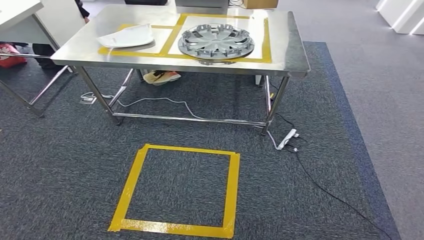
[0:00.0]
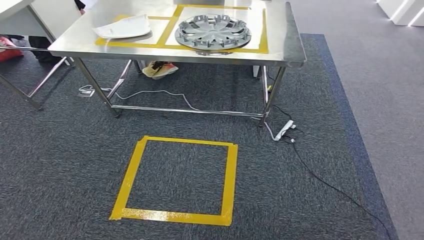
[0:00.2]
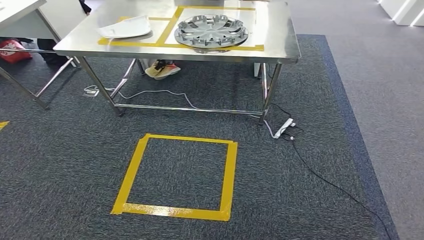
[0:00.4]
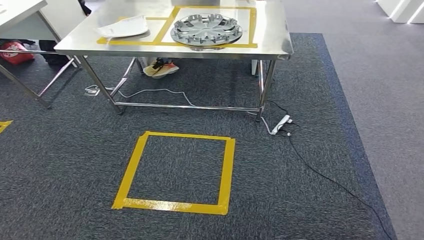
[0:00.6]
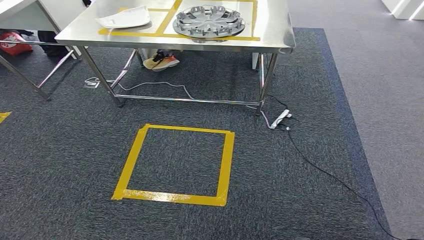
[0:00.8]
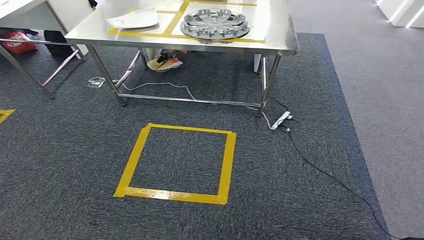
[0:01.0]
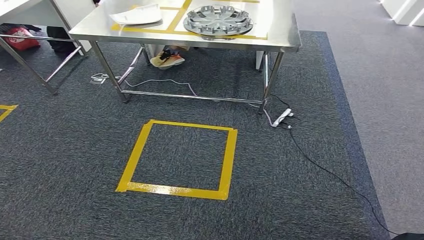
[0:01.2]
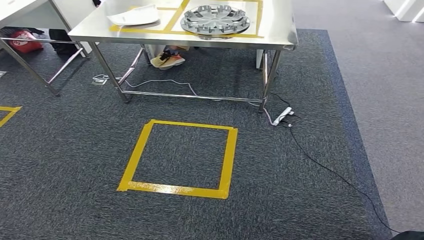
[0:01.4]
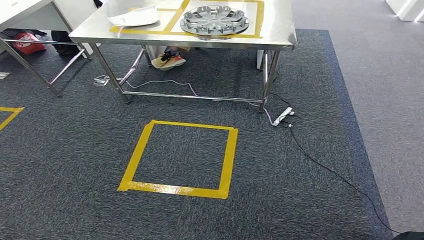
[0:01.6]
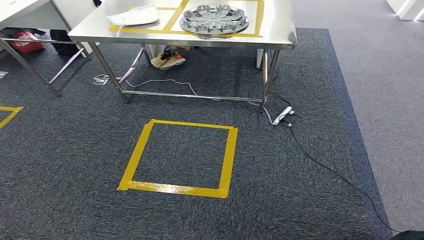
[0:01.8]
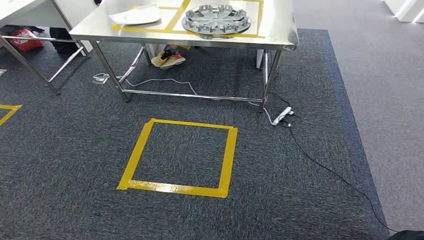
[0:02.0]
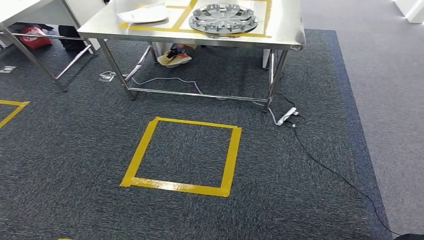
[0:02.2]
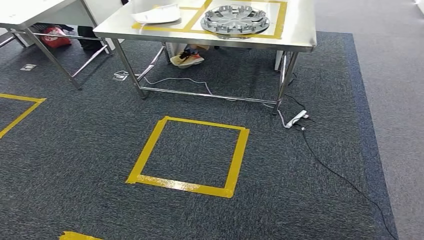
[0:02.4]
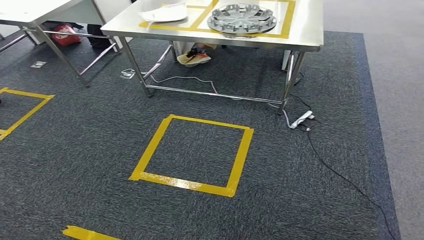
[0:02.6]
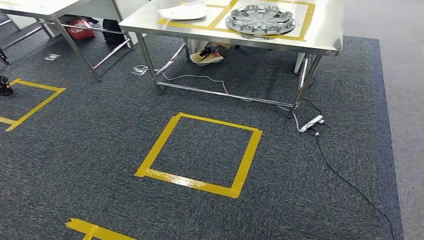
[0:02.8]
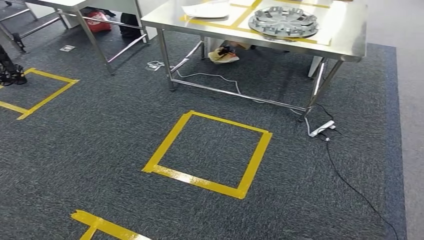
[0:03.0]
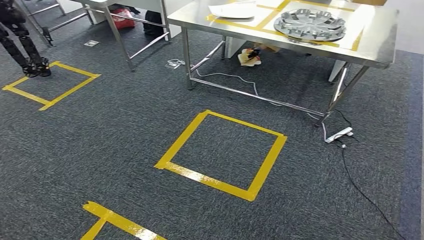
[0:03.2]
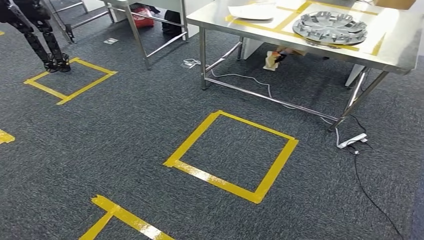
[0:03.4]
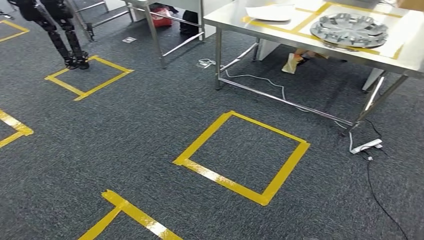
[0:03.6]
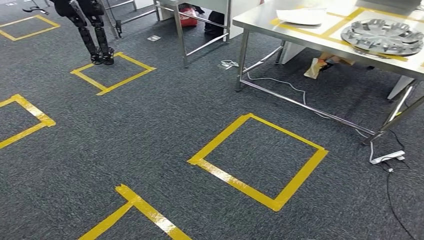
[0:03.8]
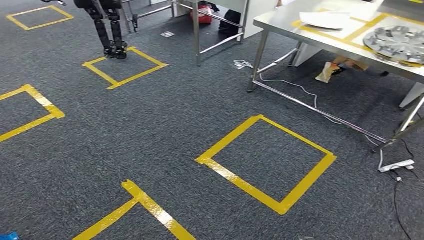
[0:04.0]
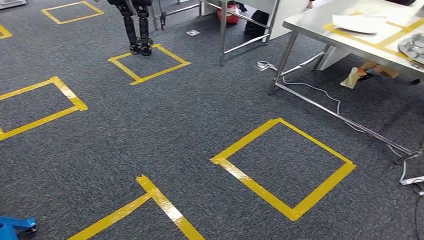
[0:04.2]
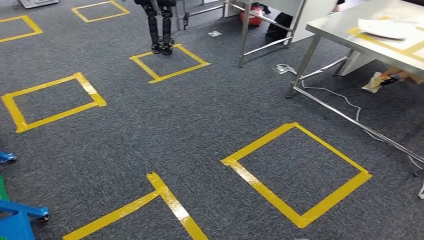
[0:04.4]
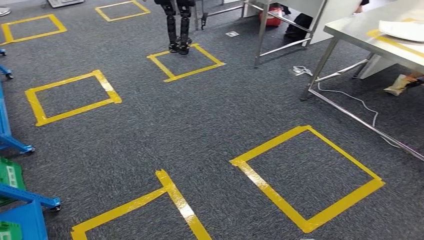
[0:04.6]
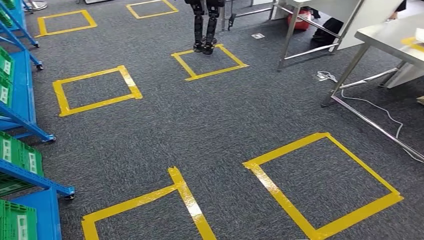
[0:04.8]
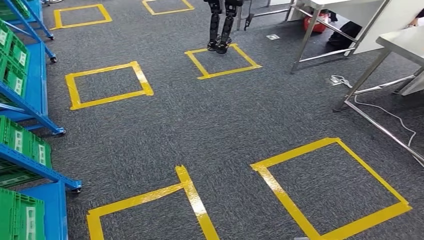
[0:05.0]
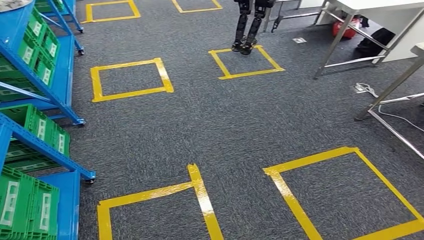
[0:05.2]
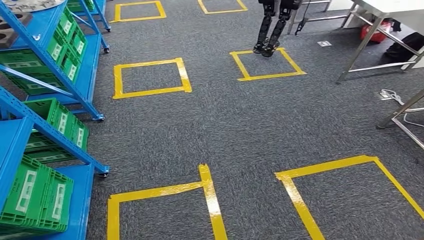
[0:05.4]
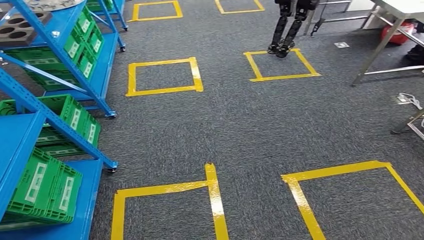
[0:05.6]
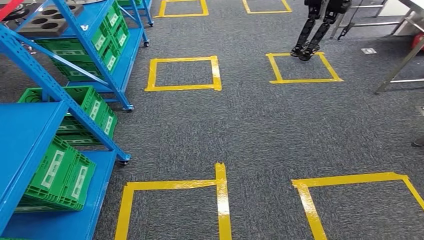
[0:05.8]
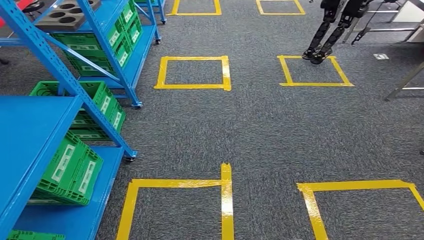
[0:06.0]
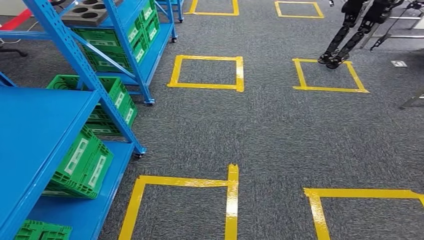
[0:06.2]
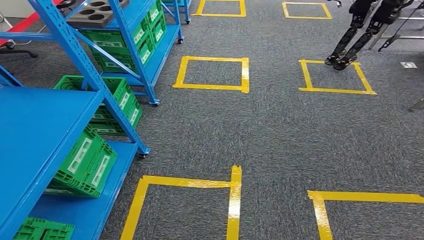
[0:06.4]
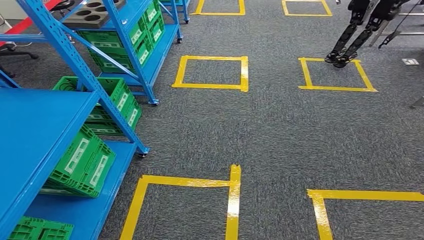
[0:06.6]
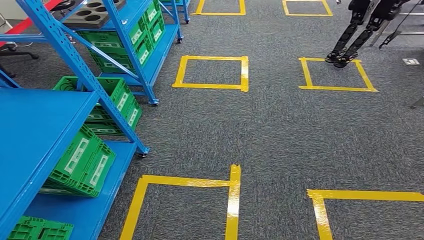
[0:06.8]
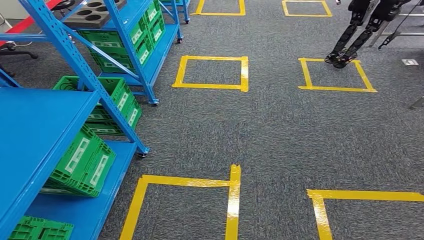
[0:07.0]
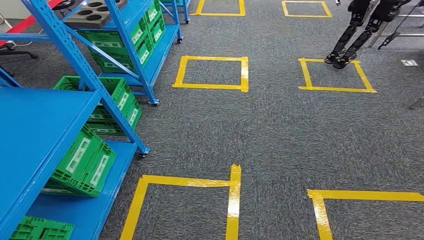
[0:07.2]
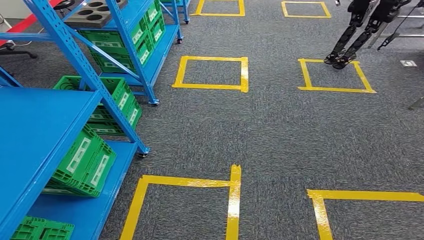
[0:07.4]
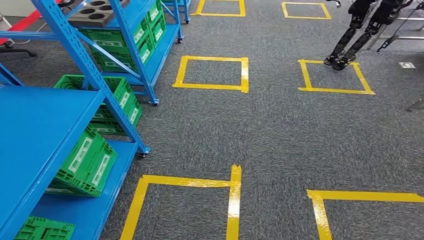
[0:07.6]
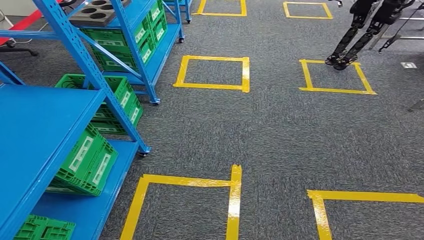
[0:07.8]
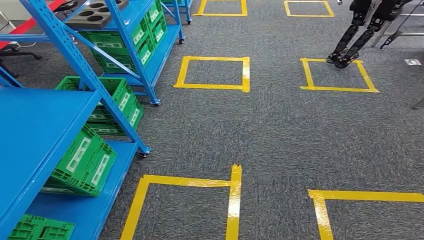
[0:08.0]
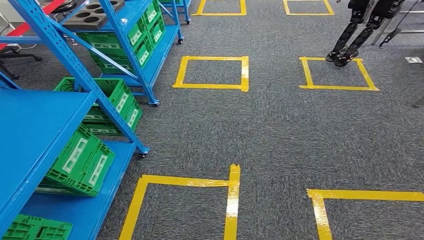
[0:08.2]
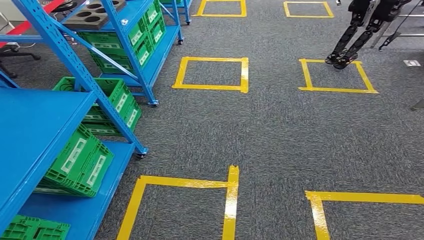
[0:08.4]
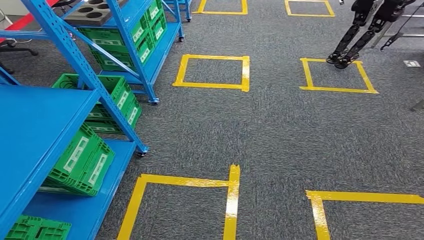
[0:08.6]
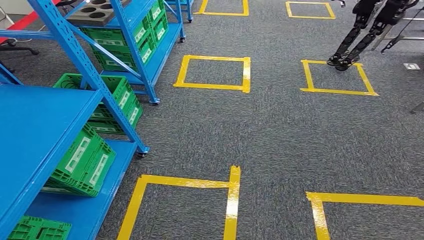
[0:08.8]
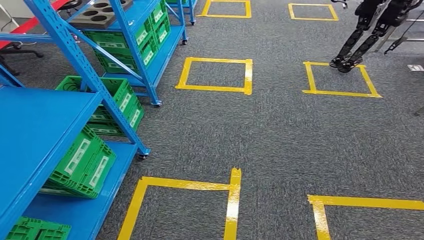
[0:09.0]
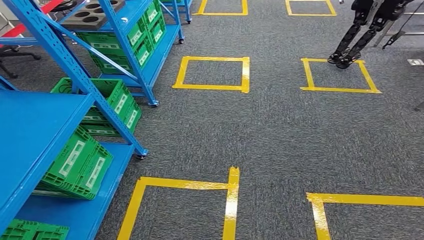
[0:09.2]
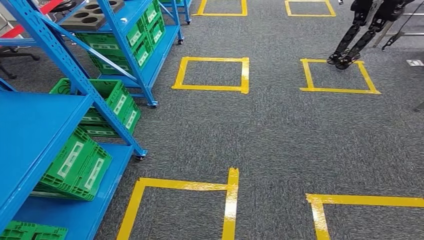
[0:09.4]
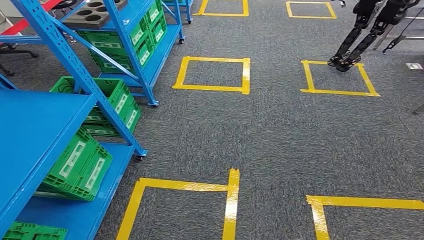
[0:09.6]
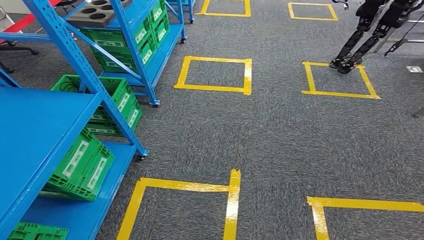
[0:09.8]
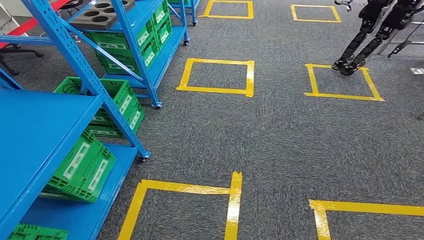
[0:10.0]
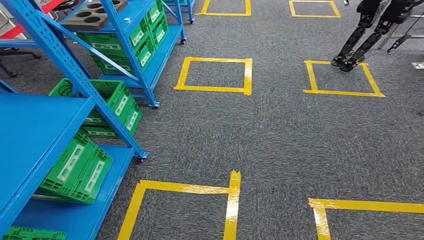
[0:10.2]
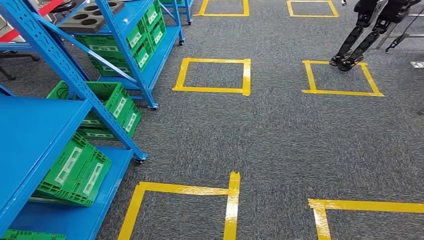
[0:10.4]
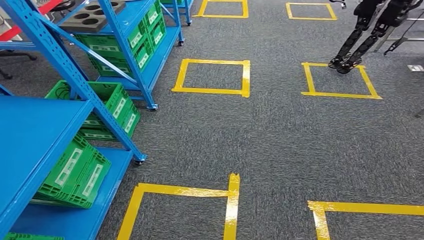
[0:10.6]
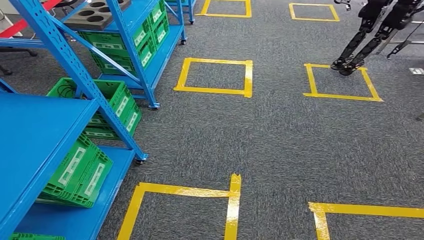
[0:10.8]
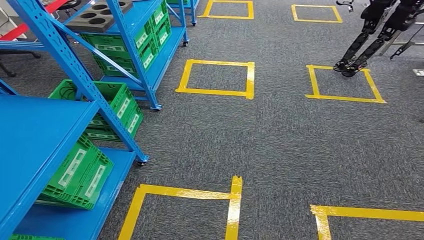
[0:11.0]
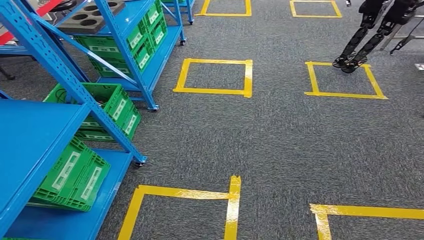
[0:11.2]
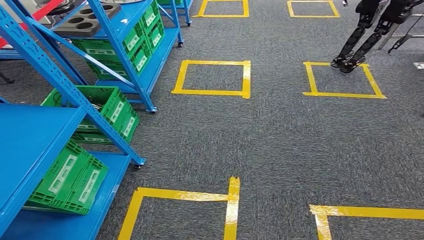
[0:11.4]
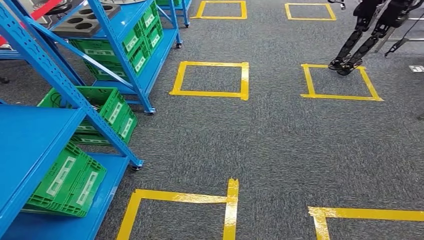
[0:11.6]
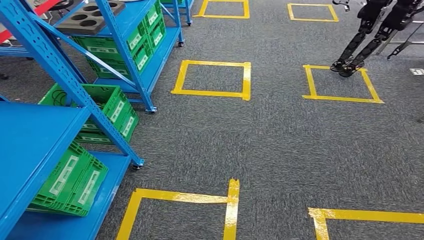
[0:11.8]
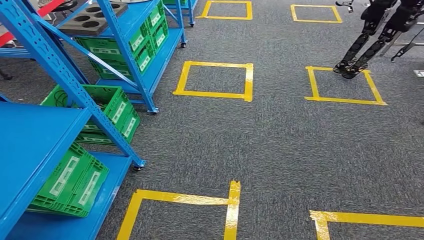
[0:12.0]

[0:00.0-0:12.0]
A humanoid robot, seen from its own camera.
0:07.6 to 0:10.4: The two hands keep their place.

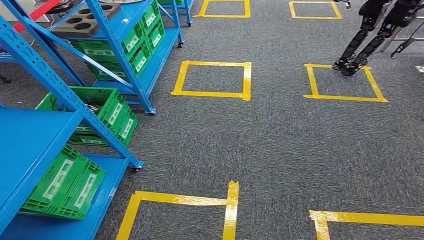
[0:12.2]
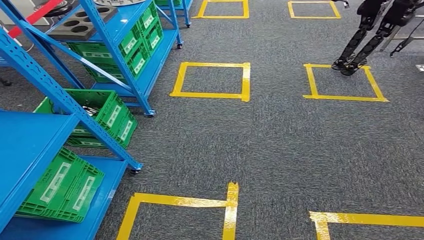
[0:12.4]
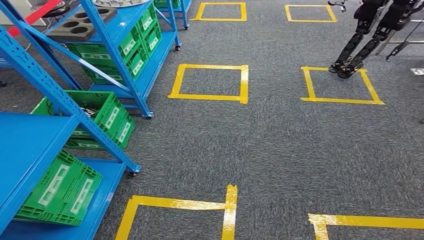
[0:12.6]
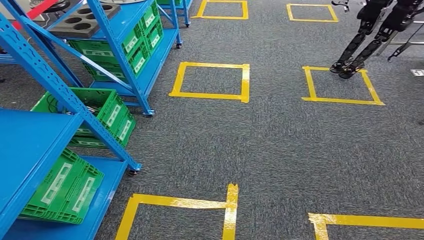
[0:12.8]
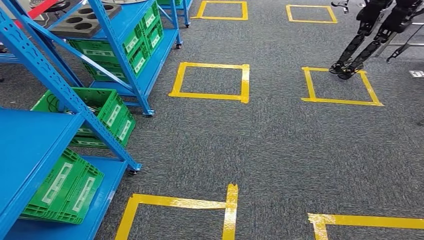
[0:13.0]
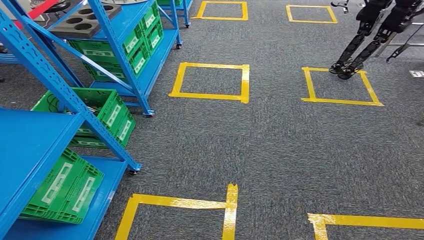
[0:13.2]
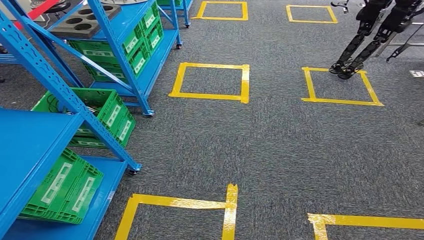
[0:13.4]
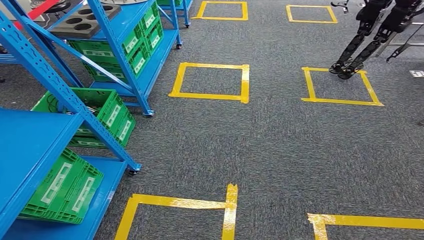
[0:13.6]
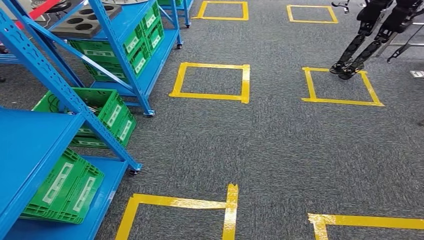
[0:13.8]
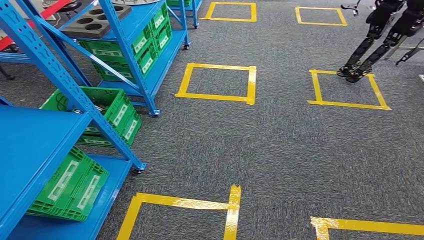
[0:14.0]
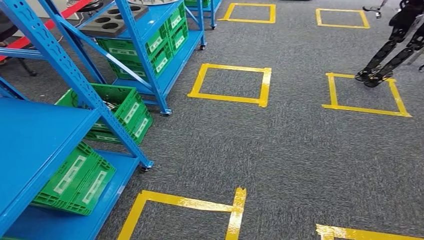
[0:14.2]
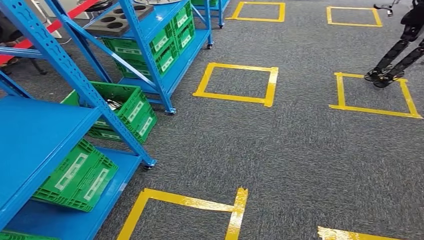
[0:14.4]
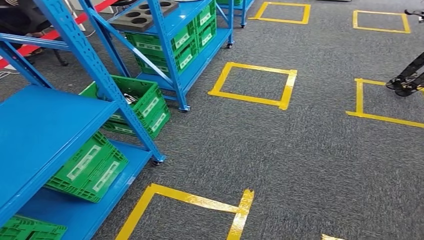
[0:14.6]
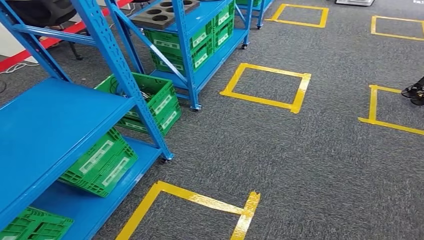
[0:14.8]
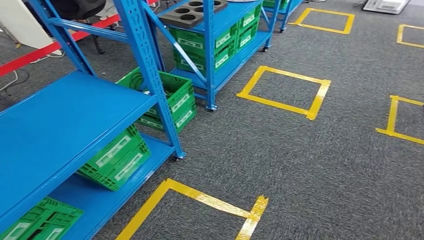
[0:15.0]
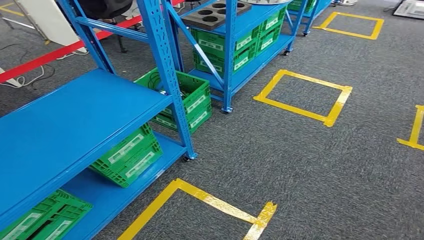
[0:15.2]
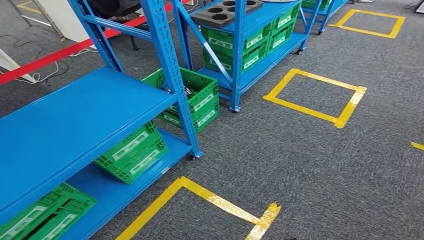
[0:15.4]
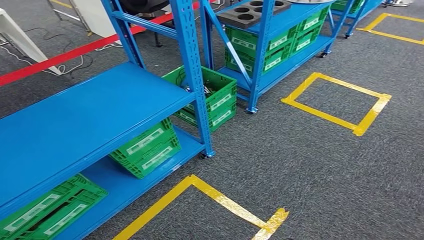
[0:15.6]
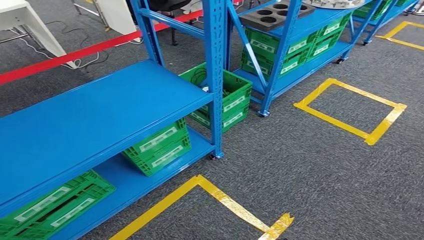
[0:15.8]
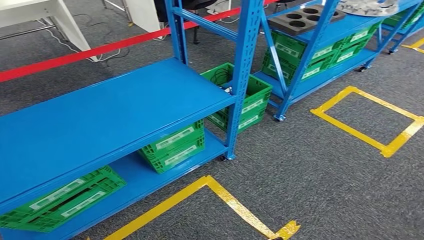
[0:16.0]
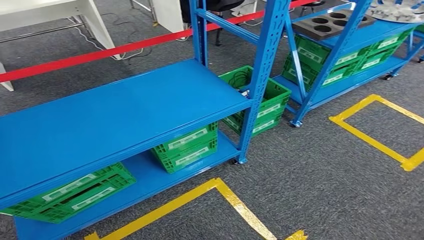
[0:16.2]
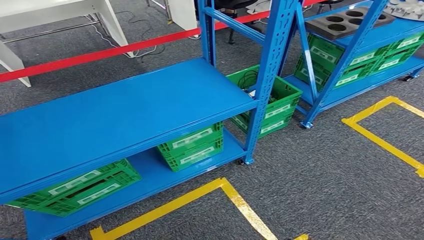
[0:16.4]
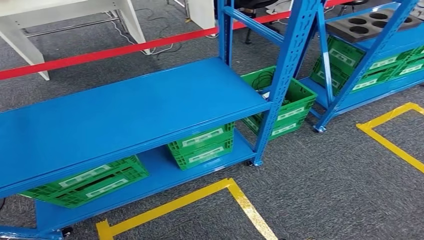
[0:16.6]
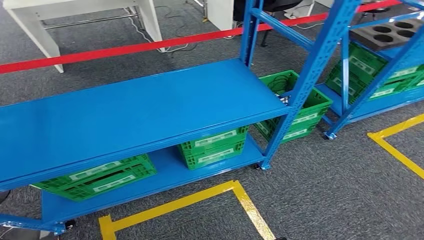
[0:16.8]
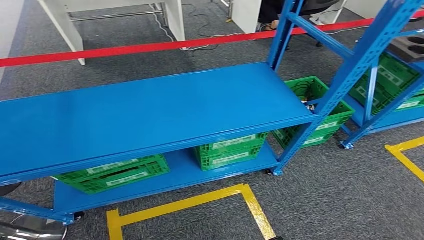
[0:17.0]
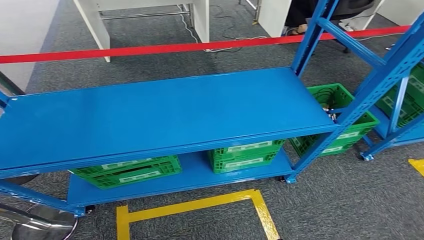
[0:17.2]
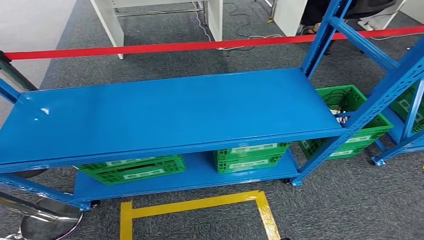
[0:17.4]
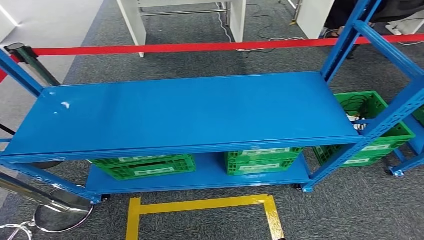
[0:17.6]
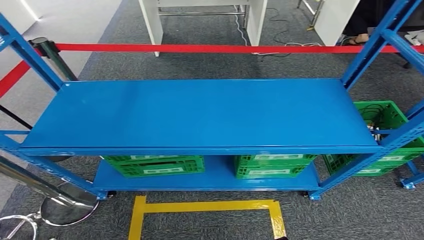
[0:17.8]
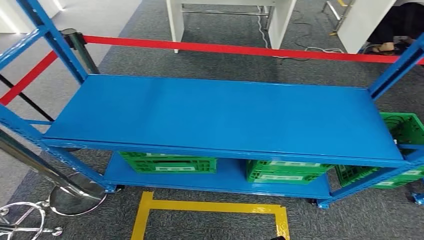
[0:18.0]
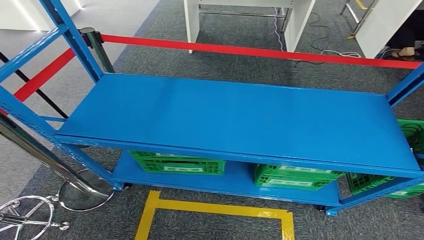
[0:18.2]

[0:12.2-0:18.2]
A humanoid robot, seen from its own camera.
Step, 0:12.2 to 0:18.2: Return to the initial position at the workbench.
0:12.2 to 0:13.8: Both hands stay about where they are.
